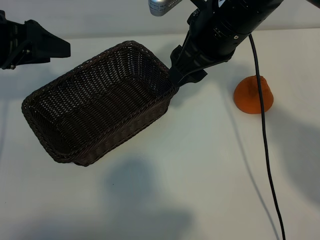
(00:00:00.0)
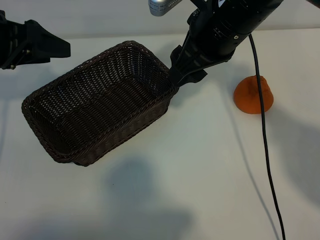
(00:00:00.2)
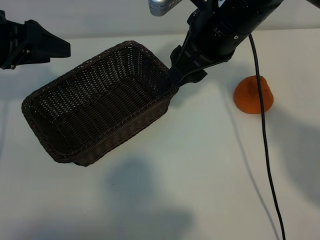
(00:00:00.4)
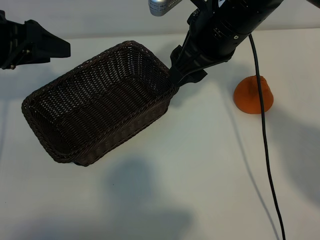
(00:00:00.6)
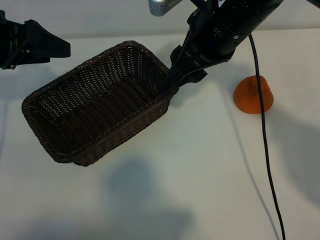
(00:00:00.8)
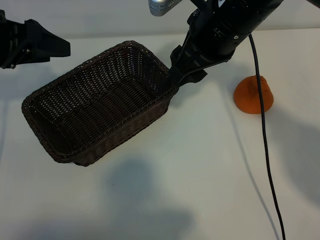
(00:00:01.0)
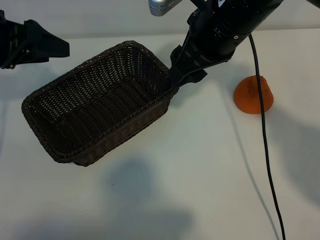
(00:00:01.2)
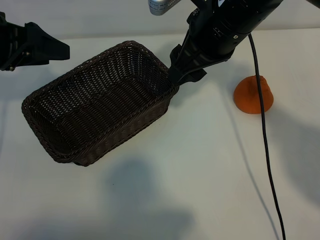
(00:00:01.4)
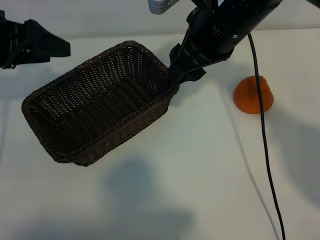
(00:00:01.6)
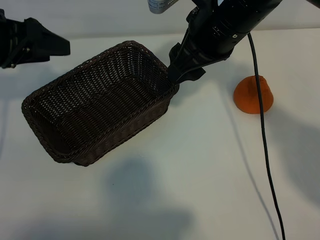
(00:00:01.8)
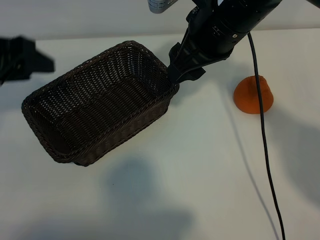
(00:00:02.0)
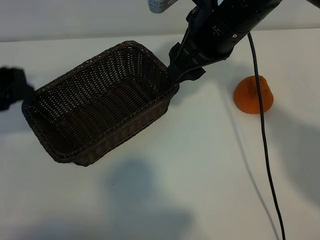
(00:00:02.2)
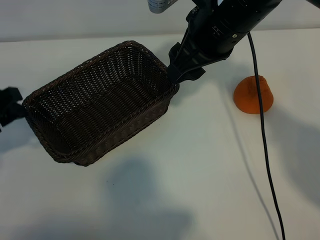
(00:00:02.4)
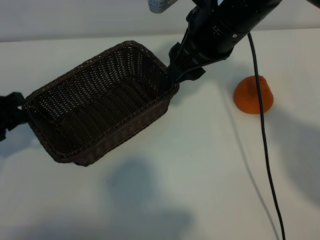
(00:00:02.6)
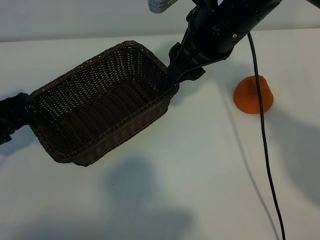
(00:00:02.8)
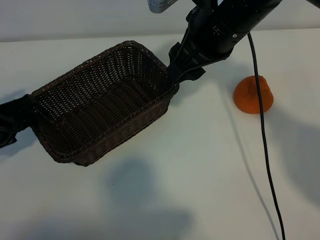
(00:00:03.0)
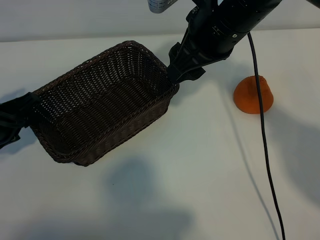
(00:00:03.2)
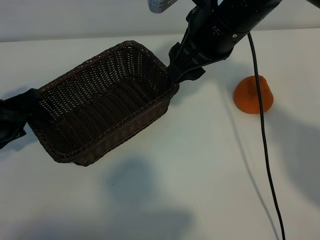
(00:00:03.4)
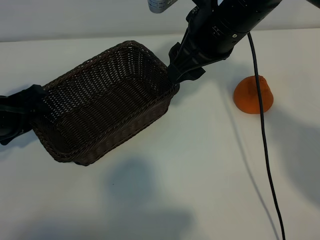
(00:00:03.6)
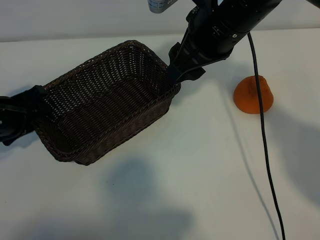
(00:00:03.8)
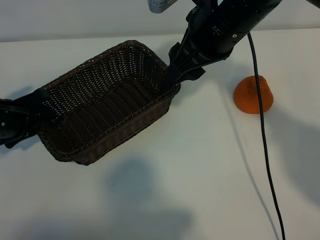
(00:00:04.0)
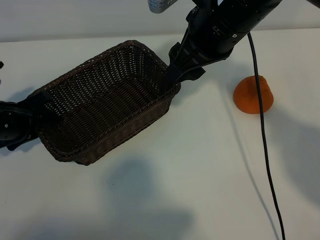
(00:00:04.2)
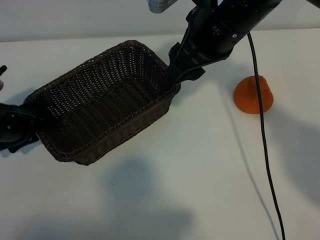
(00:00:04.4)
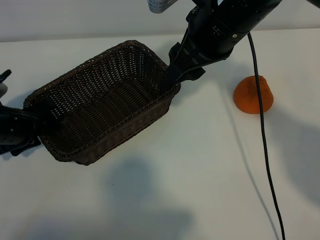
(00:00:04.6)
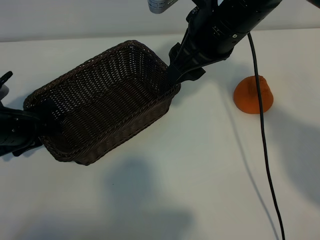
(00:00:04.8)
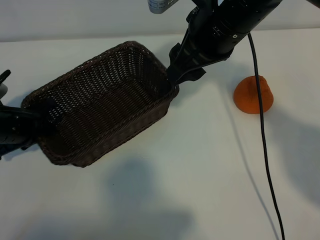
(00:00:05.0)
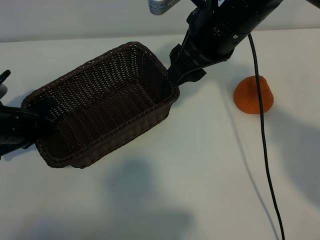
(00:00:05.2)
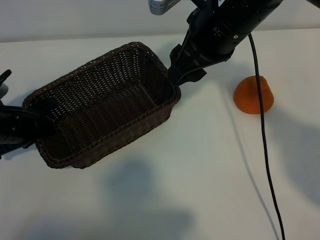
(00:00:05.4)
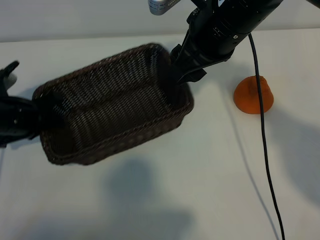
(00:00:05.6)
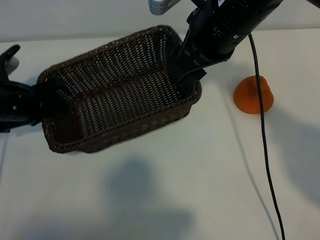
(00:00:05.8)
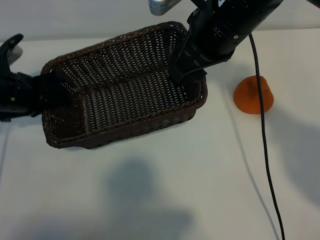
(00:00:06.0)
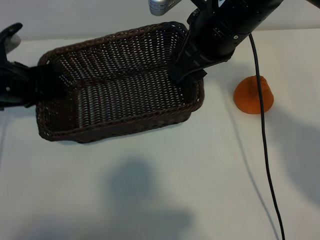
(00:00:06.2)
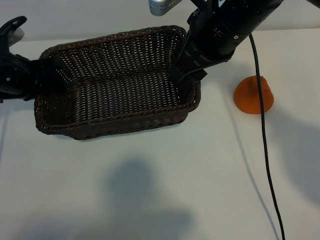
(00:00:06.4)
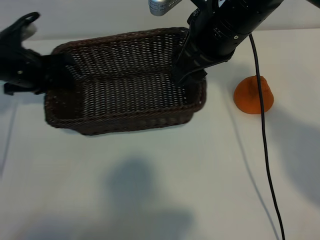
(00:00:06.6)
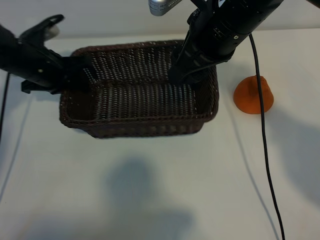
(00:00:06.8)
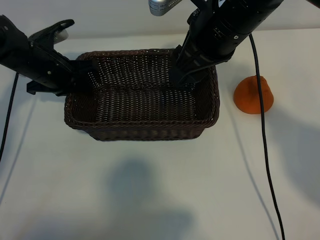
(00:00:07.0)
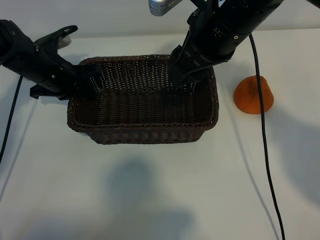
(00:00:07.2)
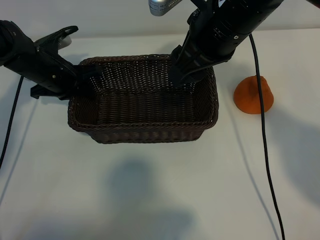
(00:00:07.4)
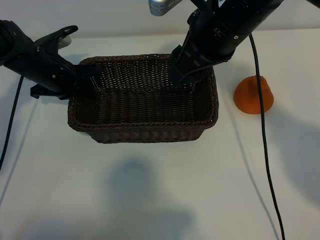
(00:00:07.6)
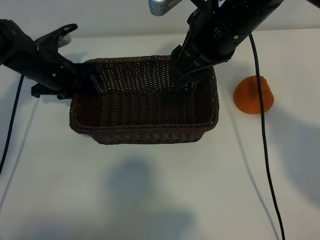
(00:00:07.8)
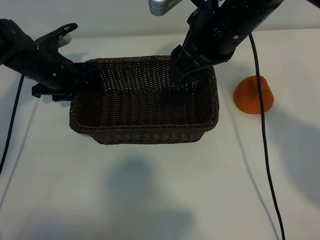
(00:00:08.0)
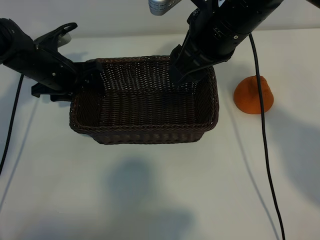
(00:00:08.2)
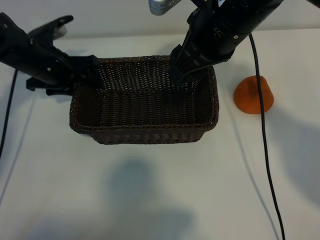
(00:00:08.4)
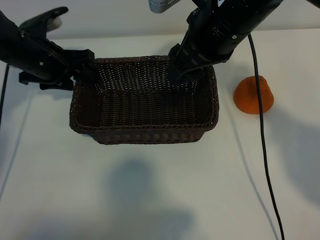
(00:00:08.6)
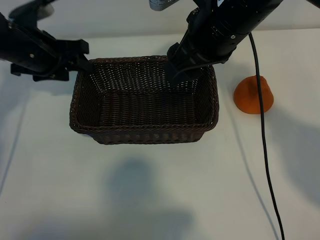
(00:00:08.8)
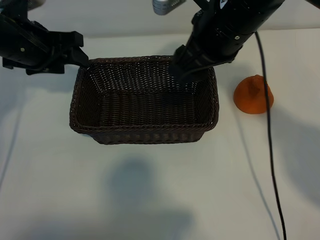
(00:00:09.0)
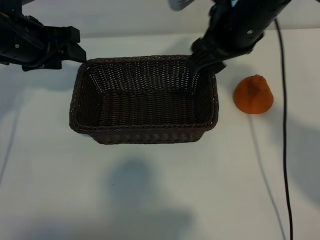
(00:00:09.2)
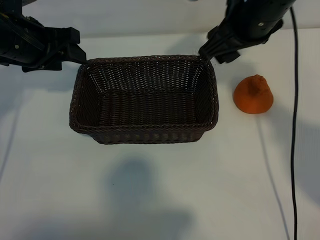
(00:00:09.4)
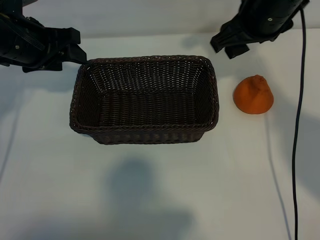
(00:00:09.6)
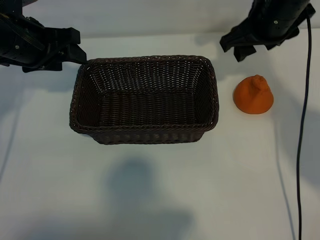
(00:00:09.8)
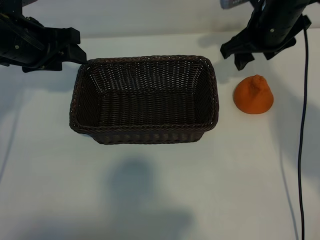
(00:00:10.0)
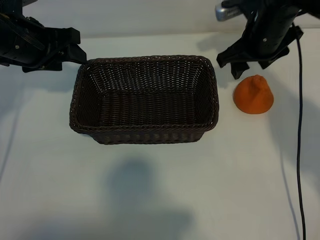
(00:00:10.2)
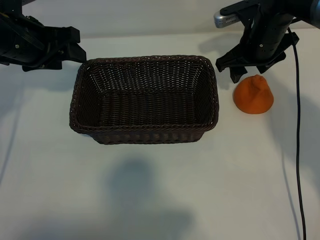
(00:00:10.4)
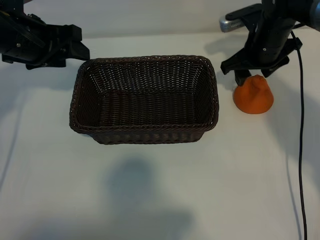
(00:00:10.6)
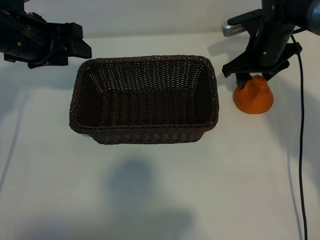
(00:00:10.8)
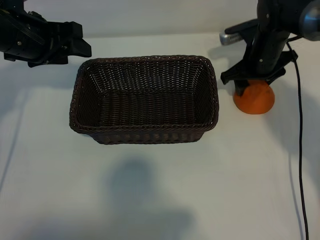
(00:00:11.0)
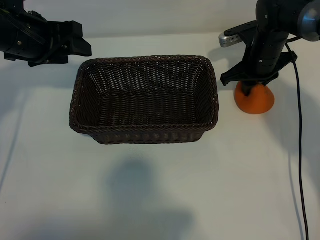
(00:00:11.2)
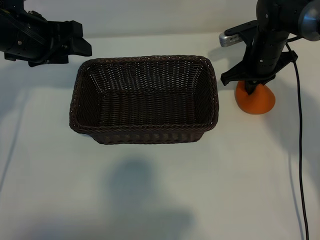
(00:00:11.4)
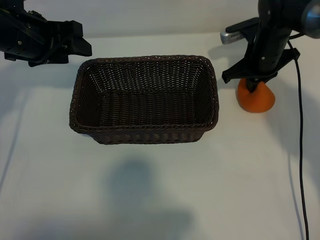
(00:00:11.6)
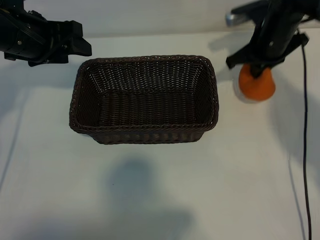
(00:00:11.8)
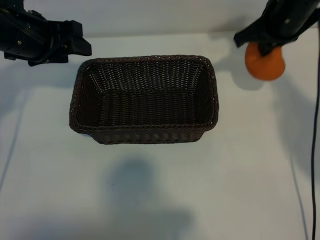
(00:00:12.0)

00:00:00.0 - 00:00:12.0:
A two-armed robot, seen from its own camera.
Task of the whole recording: pick up the orange and put it into the basket.
Step, 00:00:01.0 - 00:00:05.2: Grasp the basket with left gripper.
Step, 00:00:05.4 - 00:00:07.6: Place the basket in the center of view with left gripper.
Step, 00:00:08.0 - 00:00:11.4: Grasp the orange with right gripper.

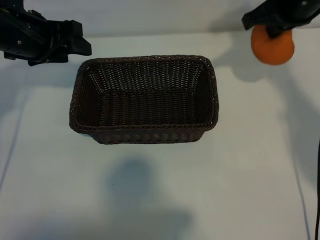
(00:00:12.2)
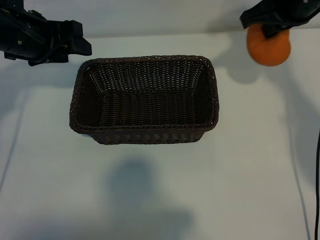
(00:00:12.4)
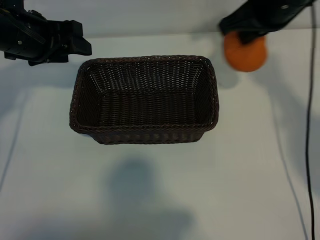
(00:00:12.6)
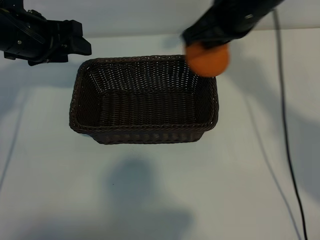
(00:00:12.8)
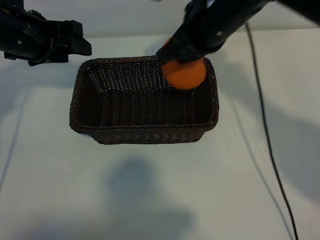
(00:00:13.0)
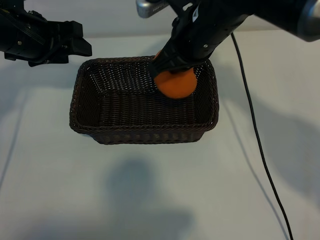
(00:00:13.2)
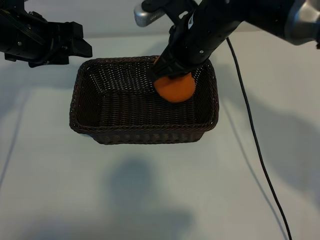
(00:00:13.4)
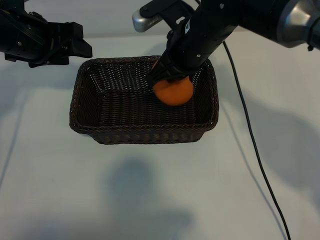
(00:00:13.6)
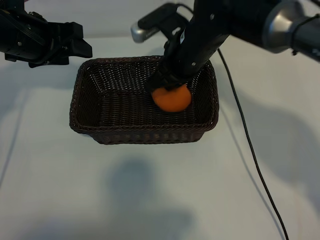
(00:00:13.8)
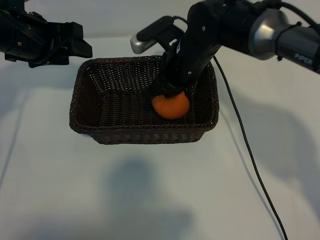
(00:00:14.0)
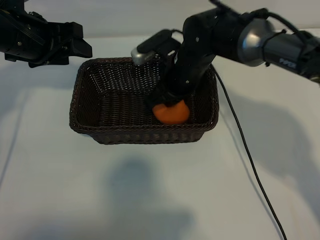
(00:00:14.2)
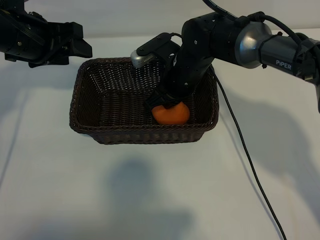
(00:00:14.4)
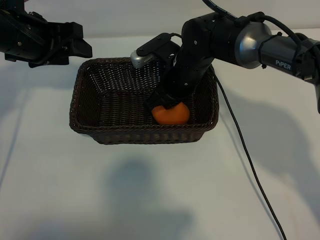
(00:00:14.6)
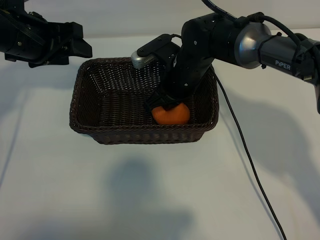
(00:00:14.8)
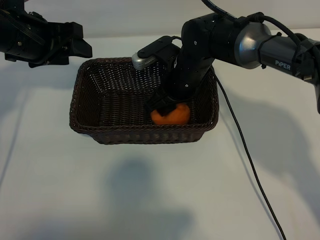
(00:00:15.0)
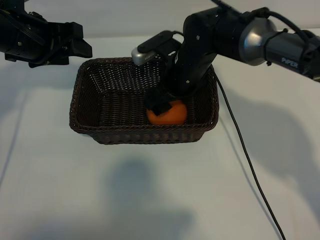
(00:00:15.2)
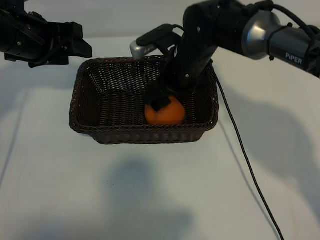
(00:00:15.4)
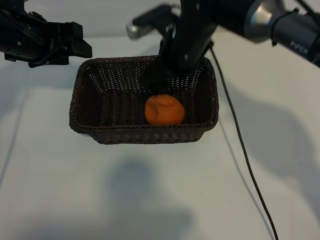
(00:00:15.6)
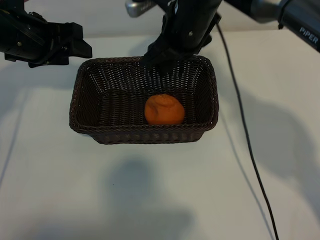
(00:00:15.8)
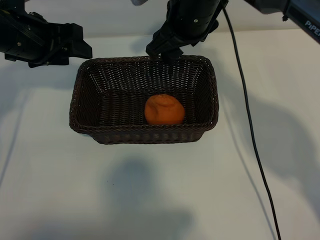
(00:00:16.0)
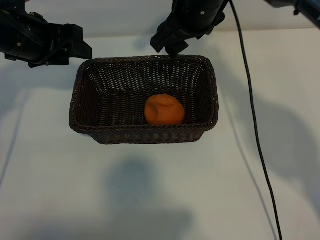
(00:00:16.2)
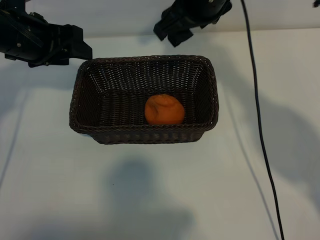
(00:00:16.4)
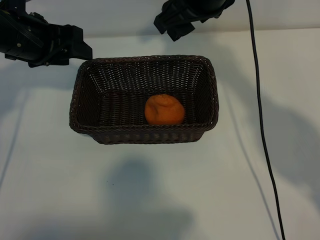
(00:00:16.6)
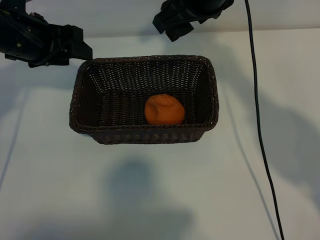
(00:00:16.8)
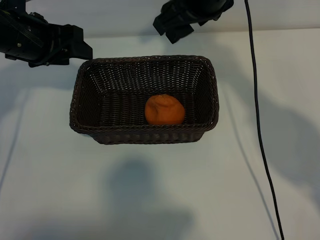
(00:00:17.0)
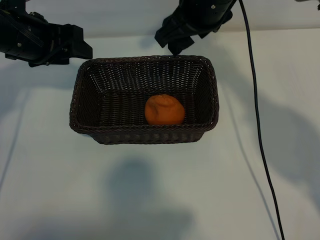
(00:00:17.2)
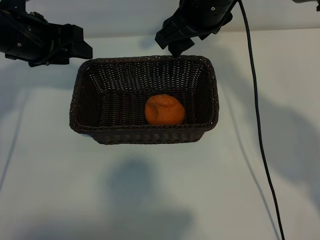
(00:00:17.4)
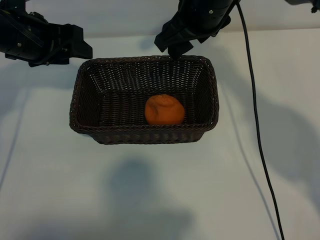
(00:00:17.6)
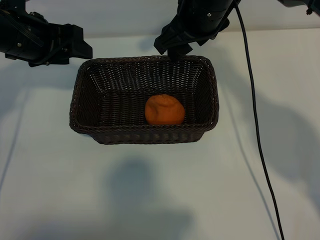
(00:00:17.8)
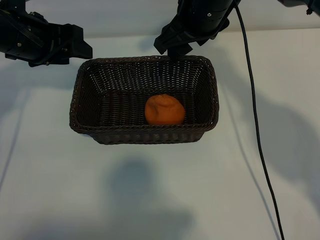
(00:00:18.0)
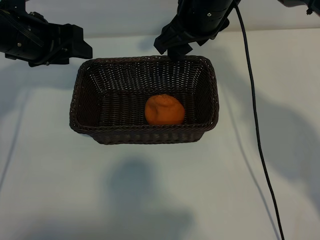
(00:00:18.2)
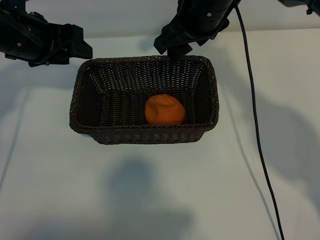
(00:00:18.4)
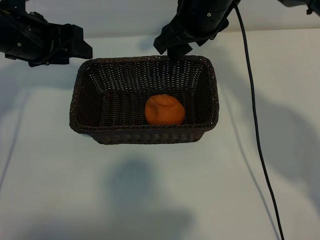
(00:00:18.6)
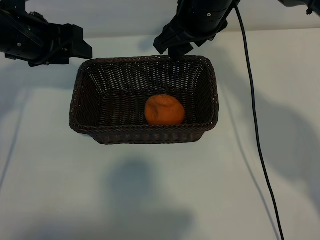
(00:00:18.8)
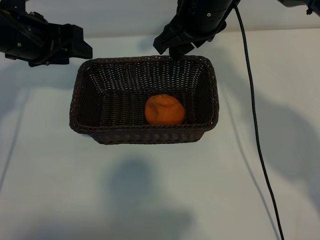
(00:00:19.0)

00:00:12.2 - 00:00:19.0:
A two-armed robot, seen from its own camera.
Task of the whole recording: pick up the orange and put it into the basket.
Step, 00:00:12.2 - 00:00:15.0: Place the orange in the basket with right gripper.
